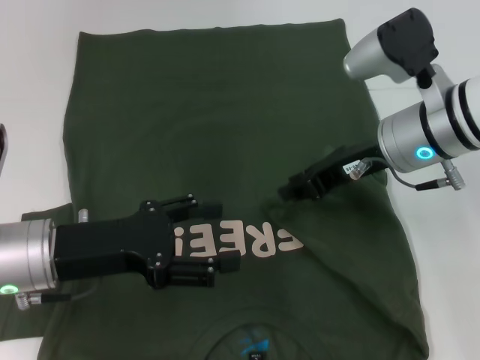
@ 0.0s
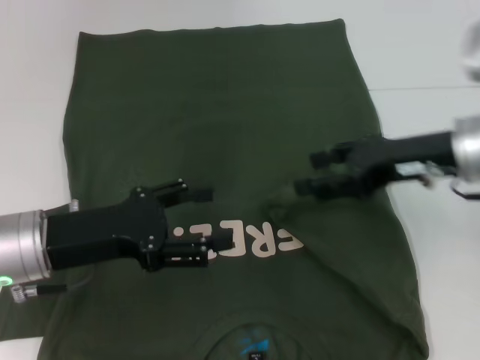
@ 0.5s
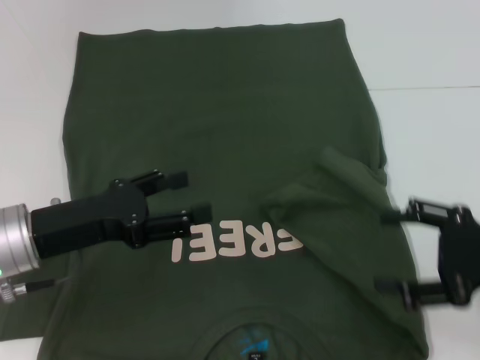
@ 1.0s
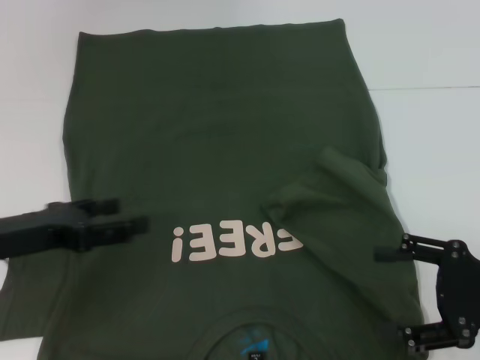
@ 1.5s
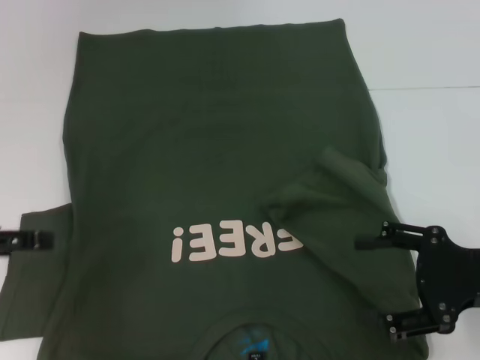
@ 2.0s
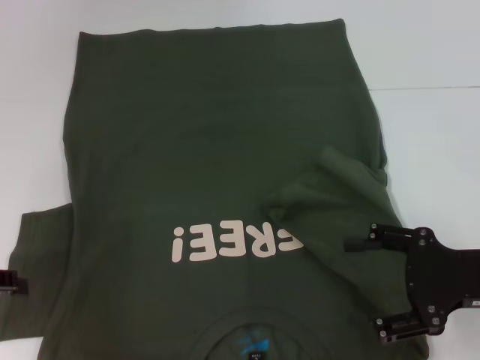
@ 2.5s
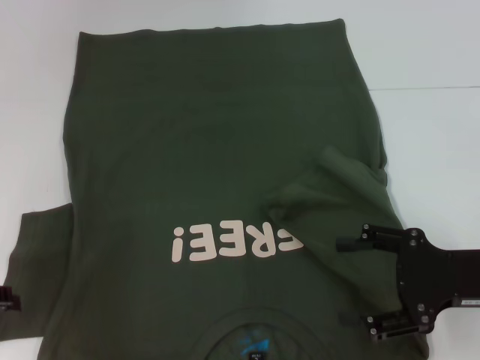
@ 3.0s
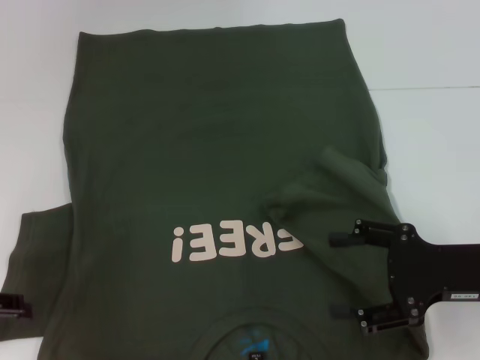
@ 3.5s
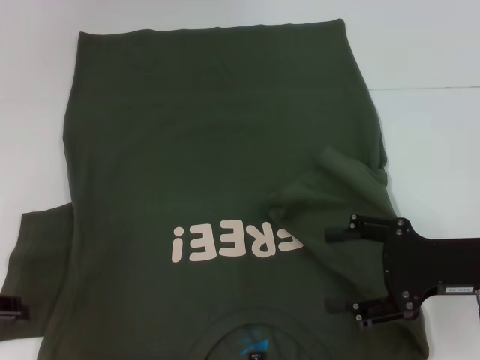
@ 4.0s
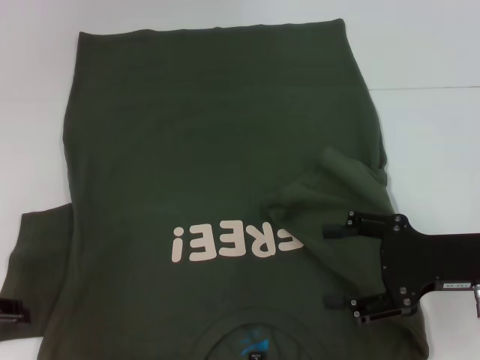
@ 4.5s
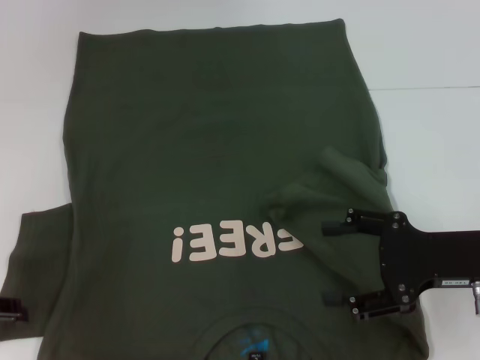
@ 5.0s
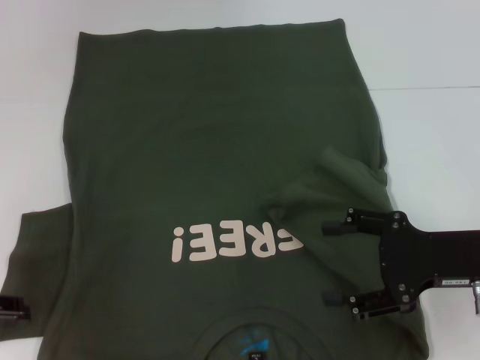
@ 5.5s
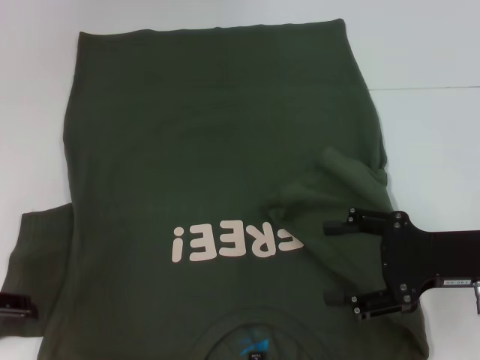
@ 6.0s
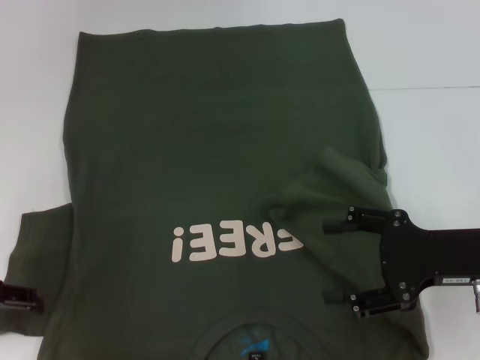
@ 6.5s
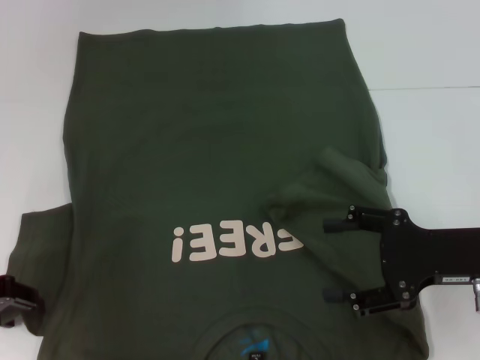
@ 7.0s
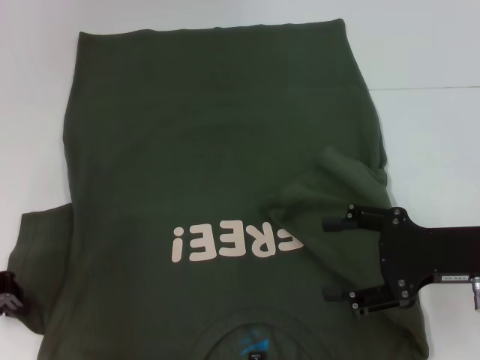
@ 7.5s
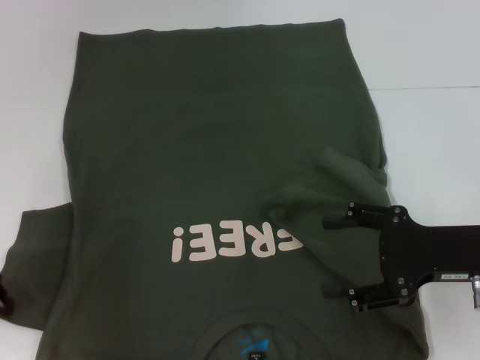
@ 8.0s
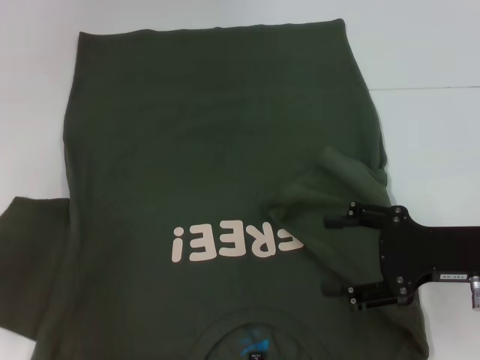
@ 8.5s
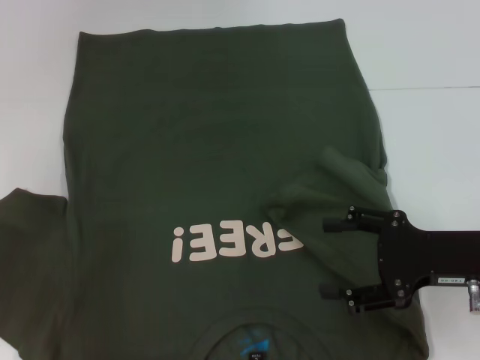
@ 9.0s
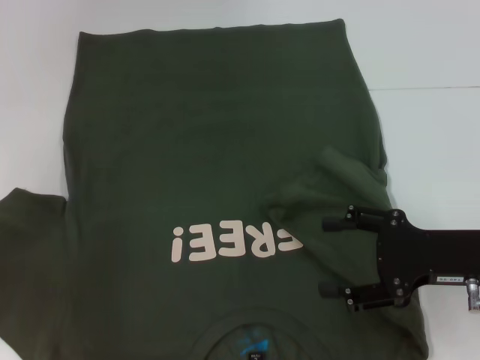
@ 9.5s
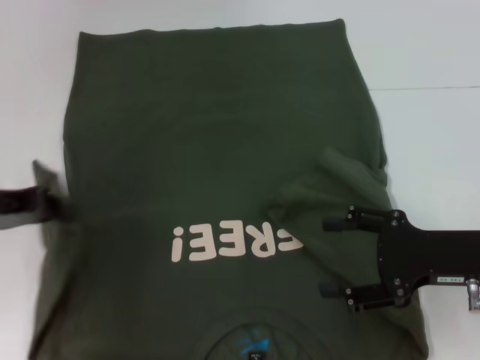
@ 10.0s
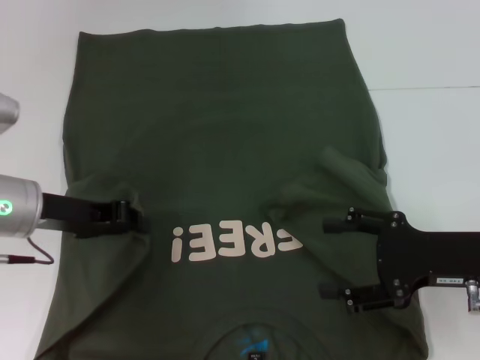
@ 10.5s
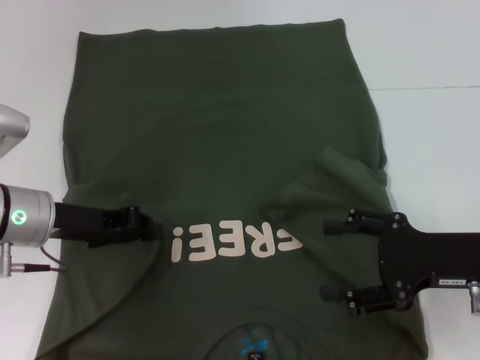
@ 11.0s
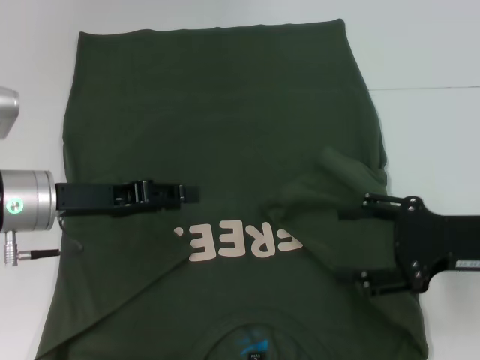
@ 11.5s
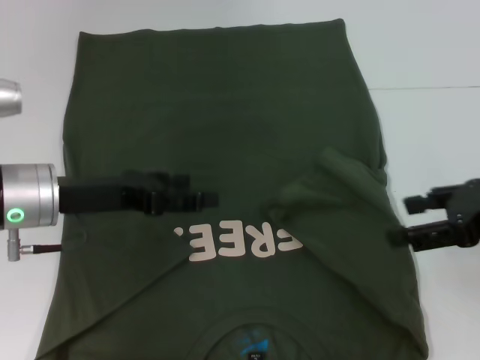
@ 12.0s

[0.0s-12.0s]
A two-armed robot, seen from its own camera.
Step, 0.5s to 11.5s: Fold the bottom left sleeve with your left hand.
0.0s to 2.0s: The left gripper moves to the left and upward, about 15 cm, while the right gripper moves backward, to the right and downward, approximately 20 cm, and opens its fingers.
4.0s to 6.0s: Neither gripper changes place.
6.0s to 8.0s: The left gripper closes up.
8.0s to 10.0s: The left gripper shifts by approximately 5 cm.
10.0s to 12.0s: The left gripper shifts roughly 10 cm to the right, and opens up. The right gripper shifts roughly 10 cm upward.

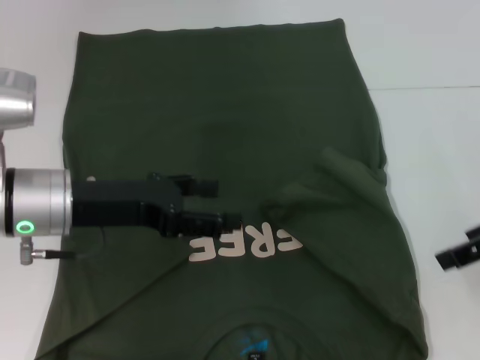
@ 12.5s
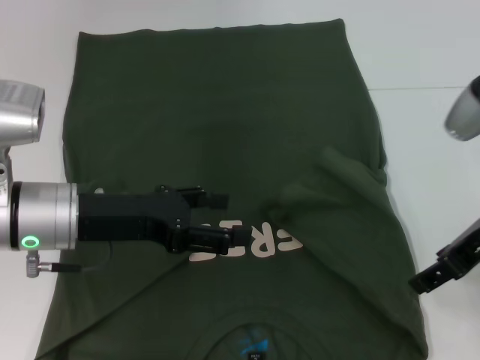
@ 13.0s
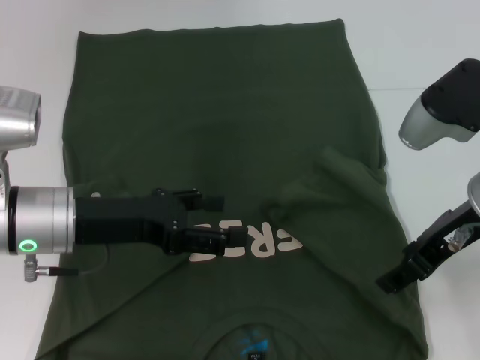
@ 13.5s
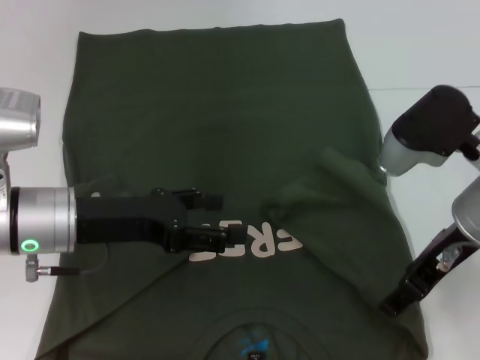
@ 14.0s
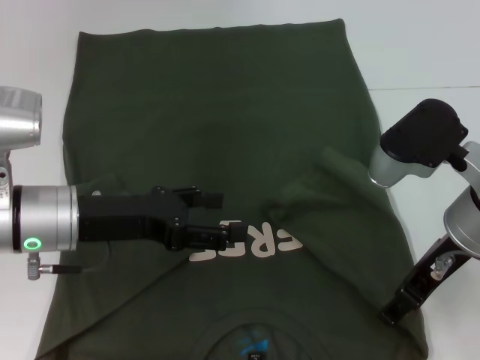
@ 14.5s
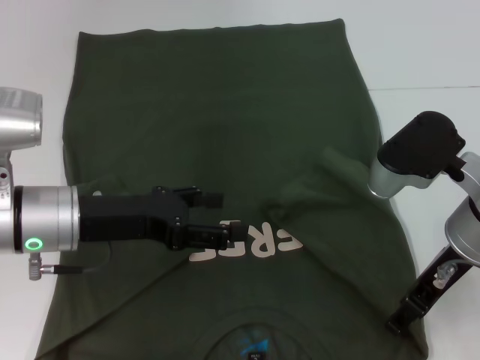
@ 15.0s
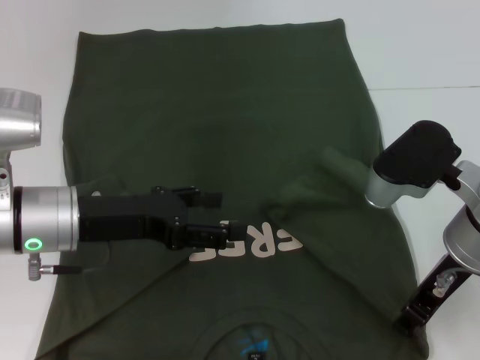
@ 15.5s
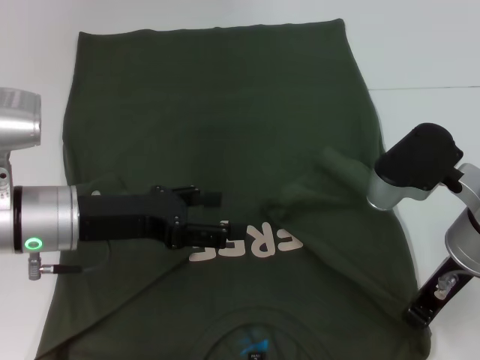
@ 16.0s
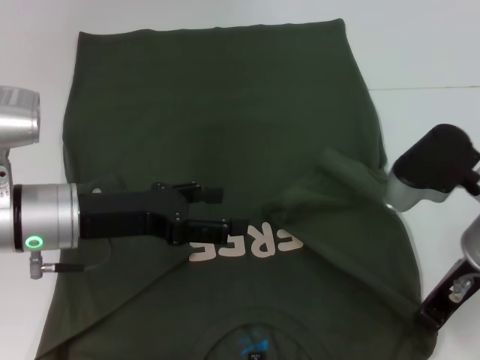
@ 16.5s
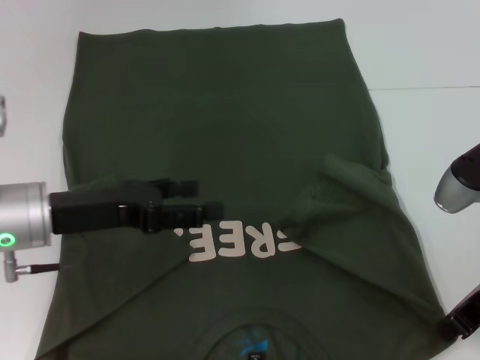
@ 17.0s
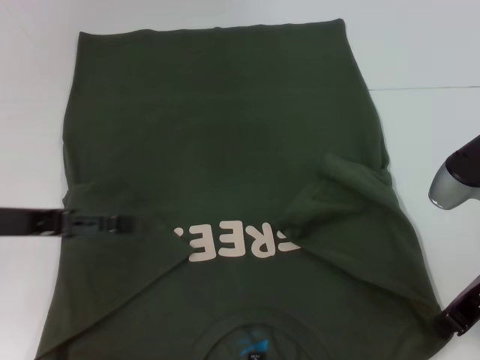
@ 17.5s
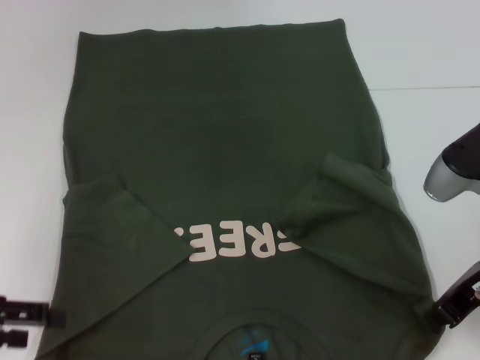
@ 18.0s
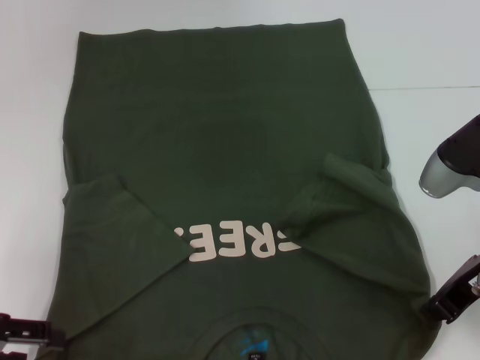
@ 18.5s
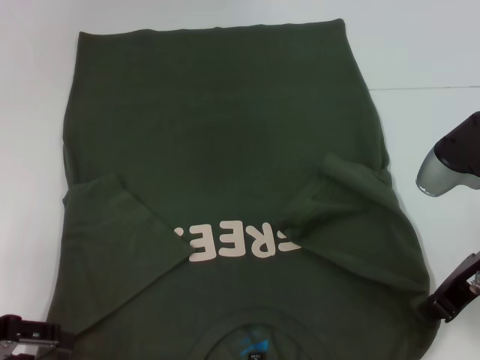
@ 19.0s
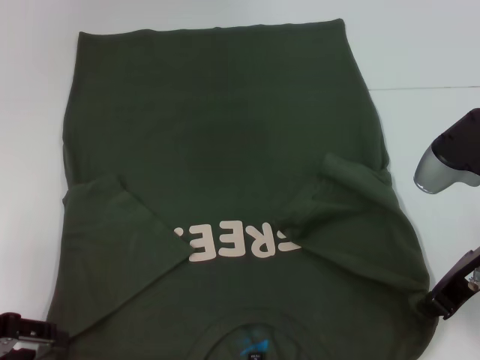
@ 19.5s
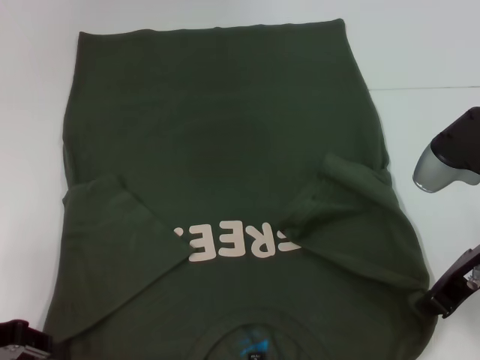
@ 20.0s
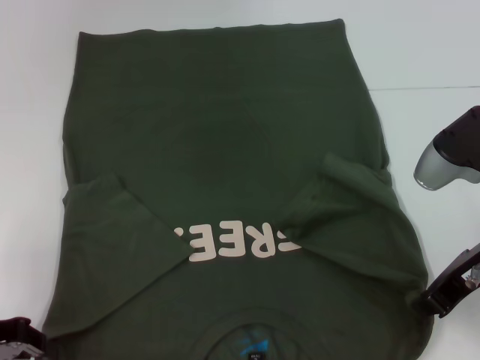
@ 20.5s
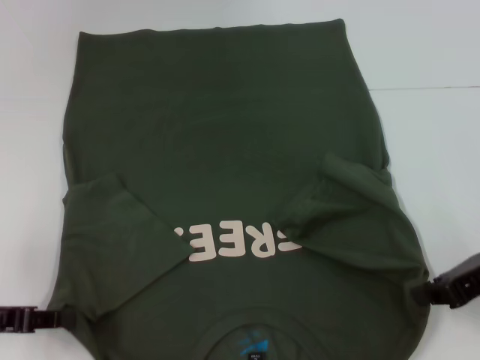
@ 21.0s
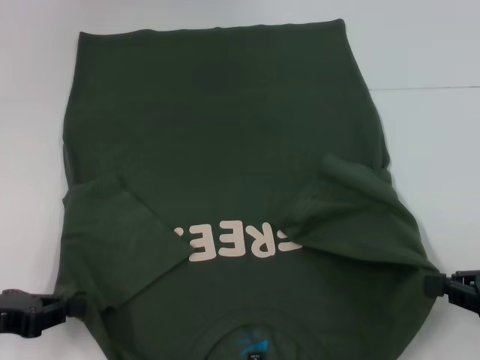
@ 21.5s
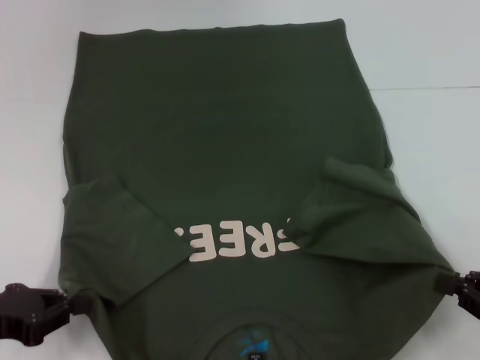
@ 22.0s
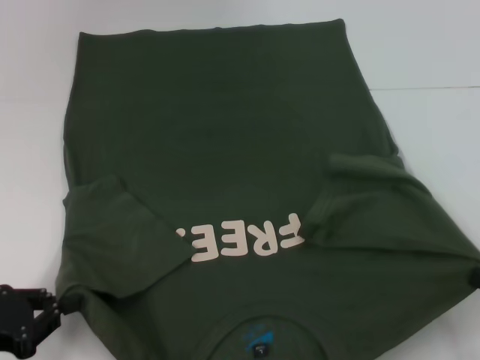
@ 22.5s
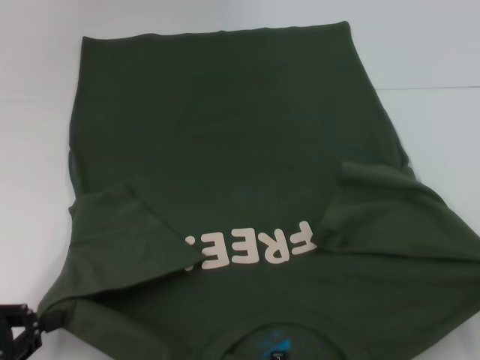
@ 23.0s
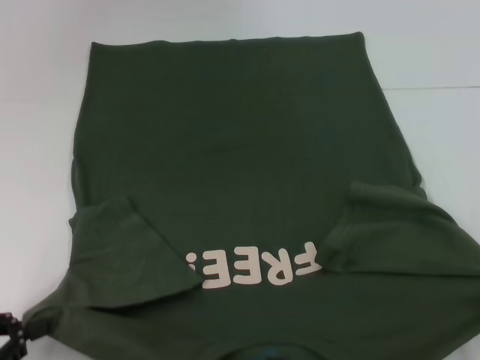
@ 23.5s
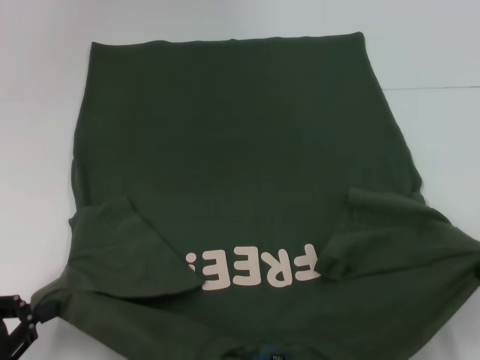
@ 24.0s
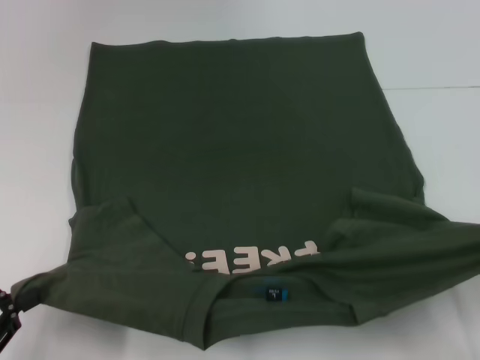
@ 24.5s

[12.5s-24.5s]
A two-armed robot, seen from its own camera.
Step, 12.5s to 16.5s: Grab the bottom right corner with your right hand.
Step, 17.0s to 20.5s: Grab the bottom left corner with your left hand.
12.5s to 14.5s: The right gripper is displaced to the left and downward by some 10 cm.
14.5s to 16.5s: The right gripper closes.
16.5s to 18.5s: The left gripper goes roughly 15 cm to the left and backward.
18.5s to 20.5s: The left gripper closes its fingers.
20.5s to 22.5s: The right gripper travels backward, to the right and downward by roughly 20 cm. The left gripper goes about 5 cm backward.
22.5s to 24.5s: The grippers move only a little.

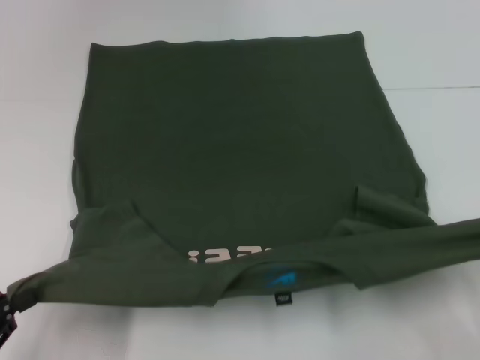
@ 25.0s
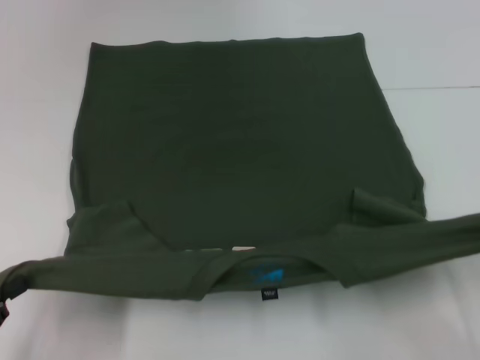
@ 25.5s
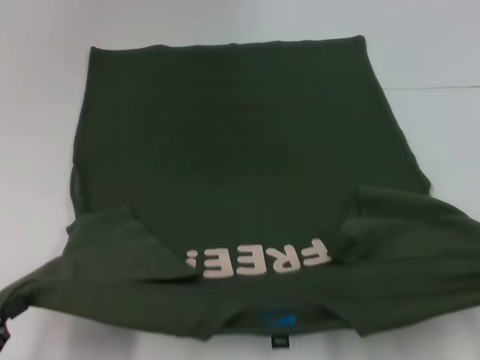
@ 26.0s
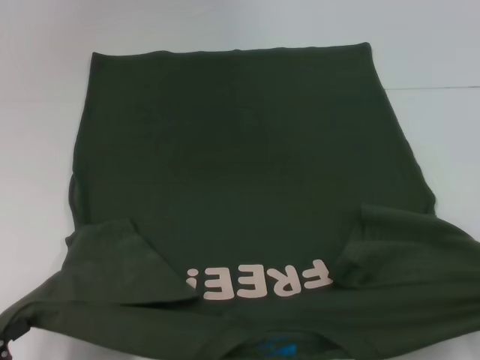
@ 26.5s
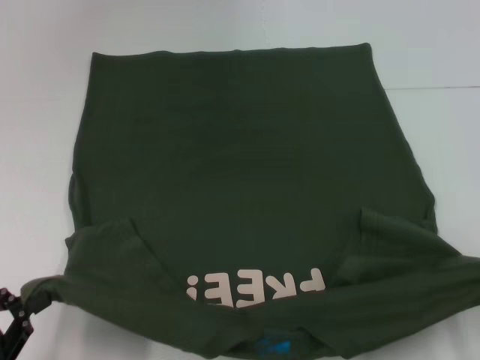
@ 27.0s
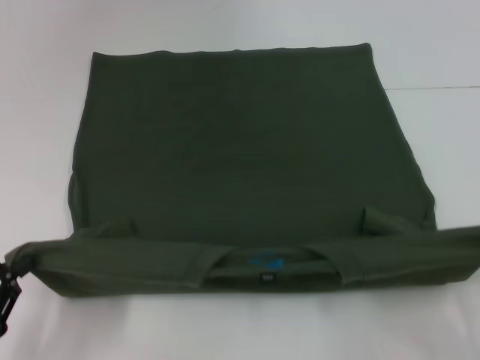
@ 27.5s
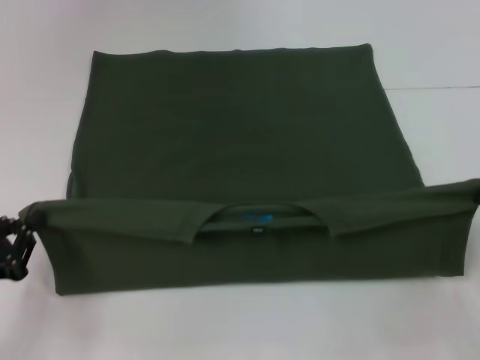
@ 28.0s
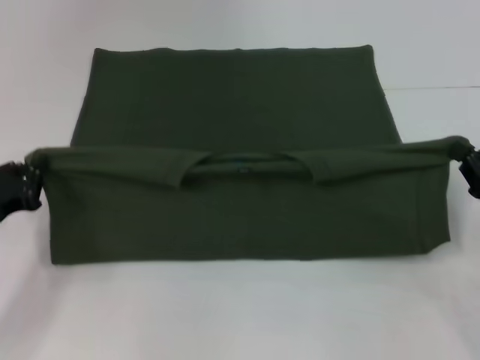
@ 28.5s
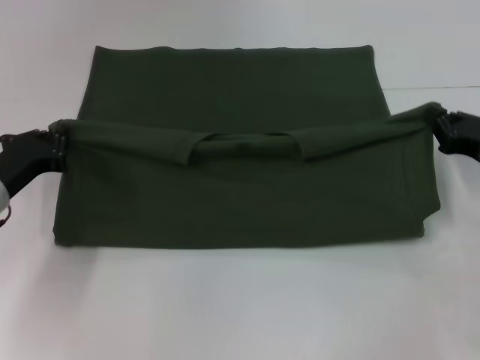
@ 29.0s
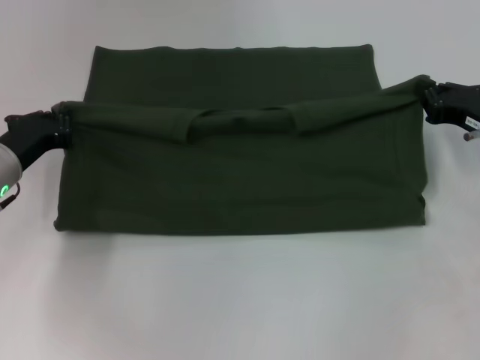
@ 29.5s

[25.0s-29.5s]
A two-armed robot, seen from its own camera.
25.0s to 27.0s: The right gripper shifts by approximately 5 cm.
27.0s to 29.5s: The two grippers go roughly 25 cm forward.
